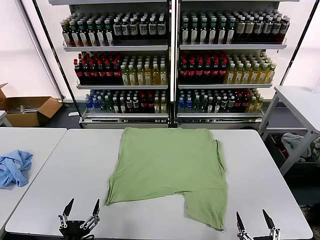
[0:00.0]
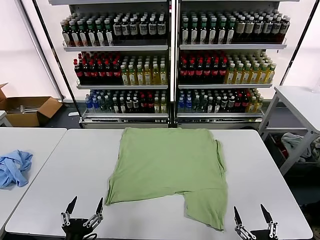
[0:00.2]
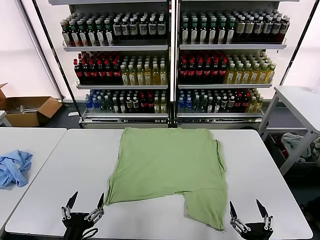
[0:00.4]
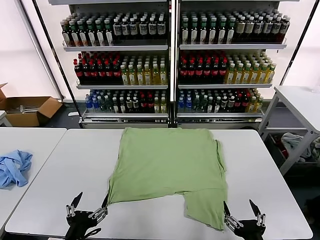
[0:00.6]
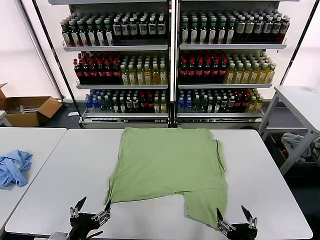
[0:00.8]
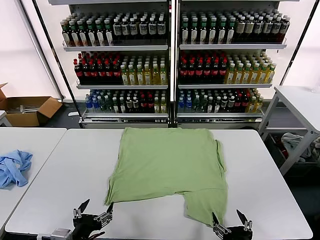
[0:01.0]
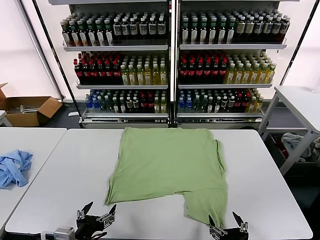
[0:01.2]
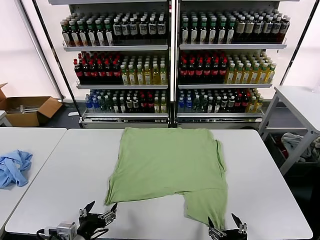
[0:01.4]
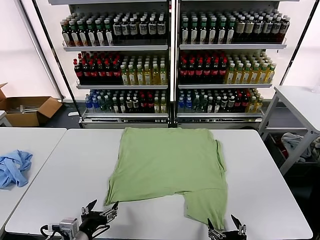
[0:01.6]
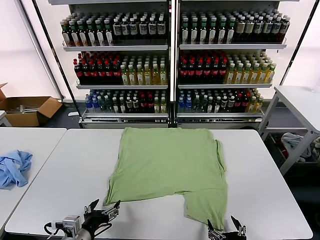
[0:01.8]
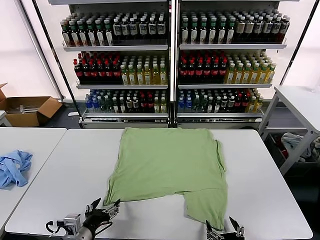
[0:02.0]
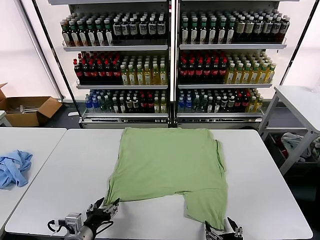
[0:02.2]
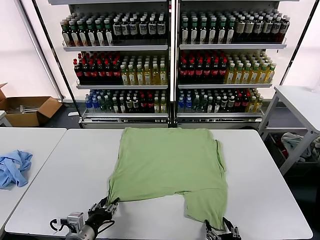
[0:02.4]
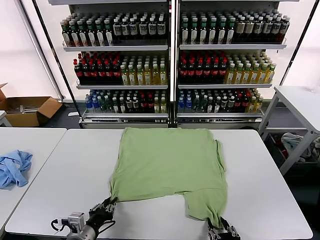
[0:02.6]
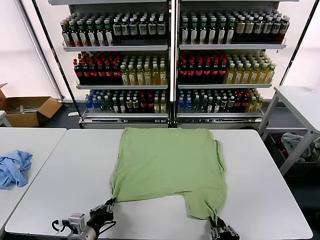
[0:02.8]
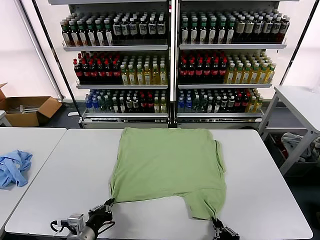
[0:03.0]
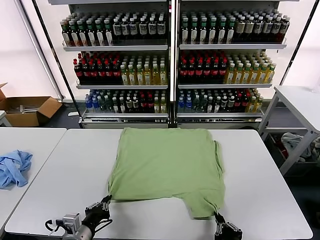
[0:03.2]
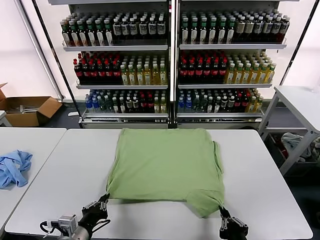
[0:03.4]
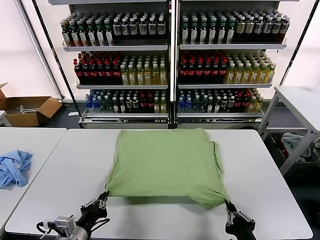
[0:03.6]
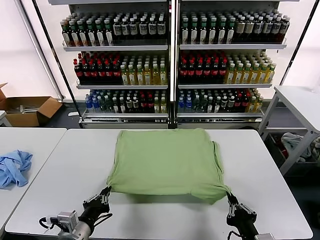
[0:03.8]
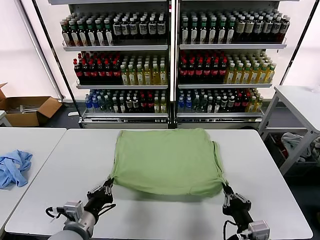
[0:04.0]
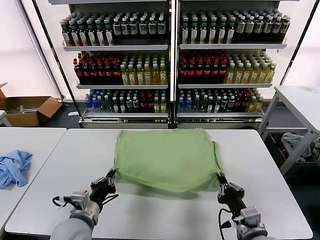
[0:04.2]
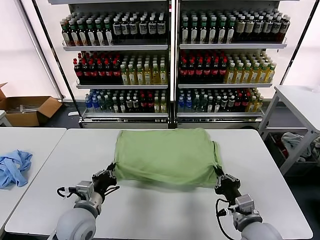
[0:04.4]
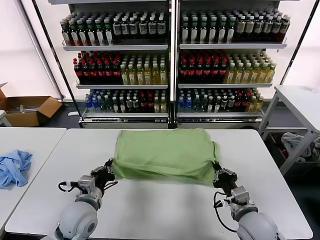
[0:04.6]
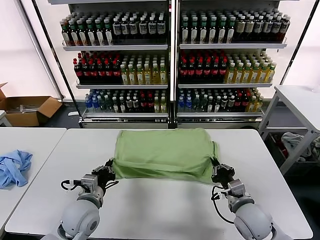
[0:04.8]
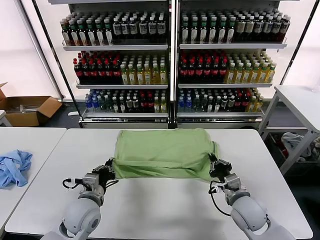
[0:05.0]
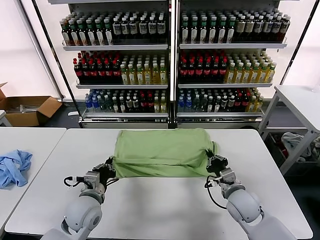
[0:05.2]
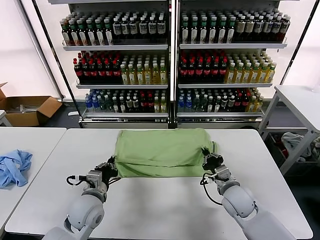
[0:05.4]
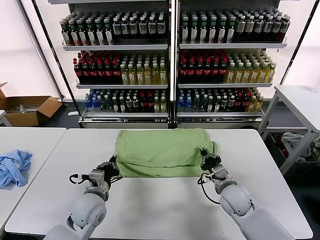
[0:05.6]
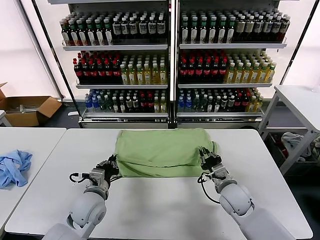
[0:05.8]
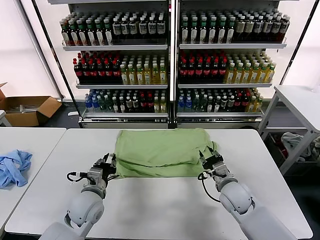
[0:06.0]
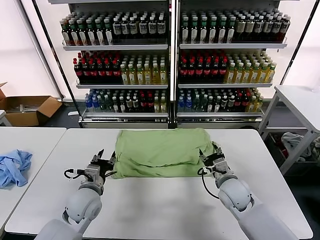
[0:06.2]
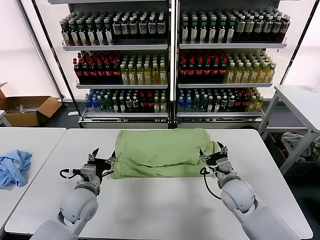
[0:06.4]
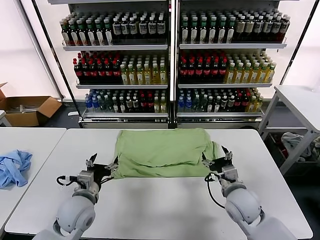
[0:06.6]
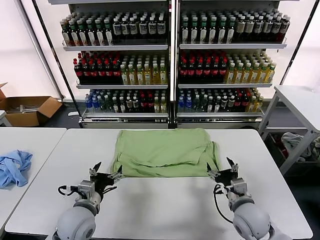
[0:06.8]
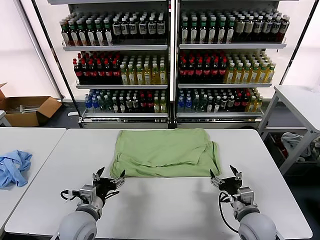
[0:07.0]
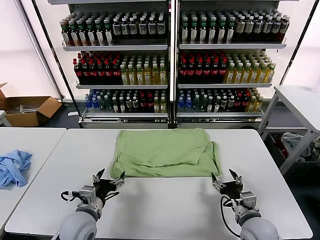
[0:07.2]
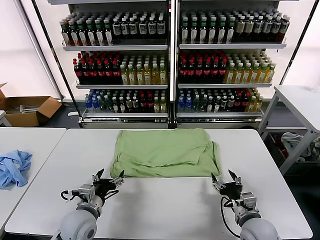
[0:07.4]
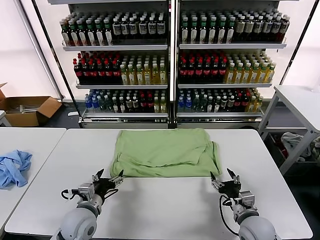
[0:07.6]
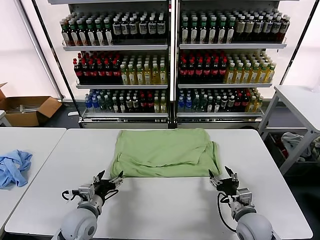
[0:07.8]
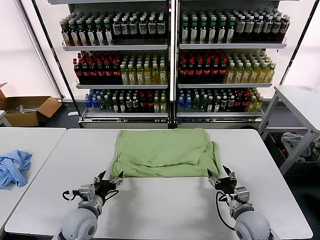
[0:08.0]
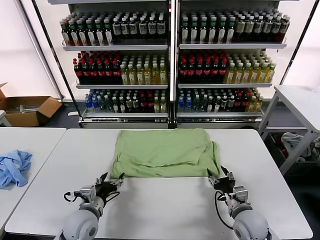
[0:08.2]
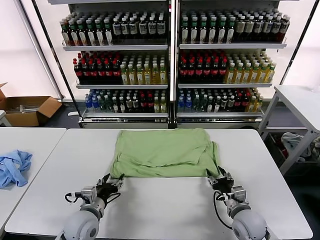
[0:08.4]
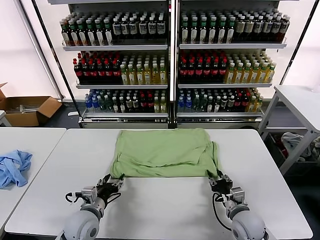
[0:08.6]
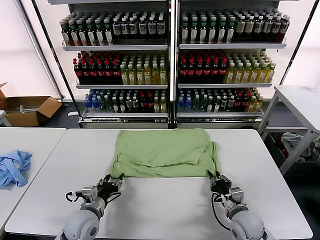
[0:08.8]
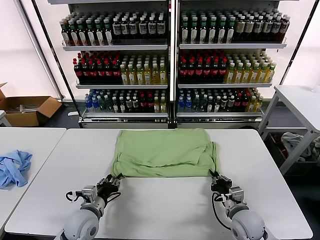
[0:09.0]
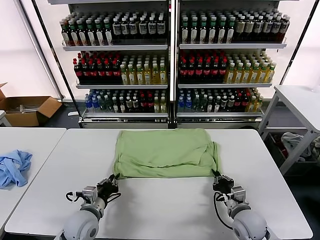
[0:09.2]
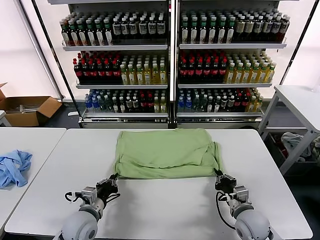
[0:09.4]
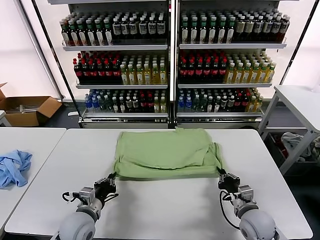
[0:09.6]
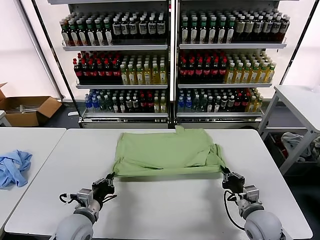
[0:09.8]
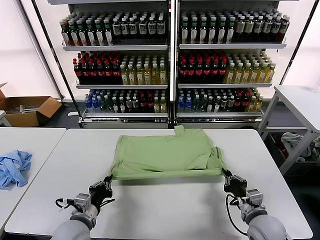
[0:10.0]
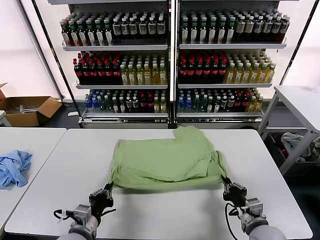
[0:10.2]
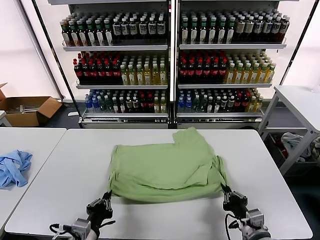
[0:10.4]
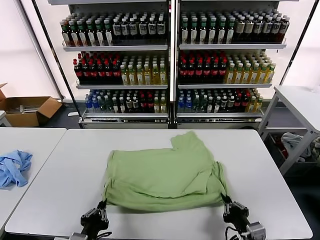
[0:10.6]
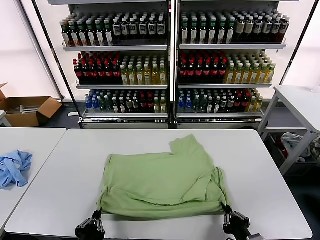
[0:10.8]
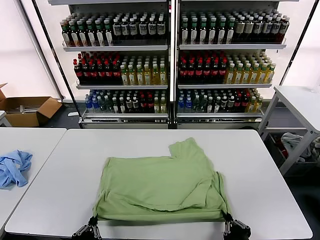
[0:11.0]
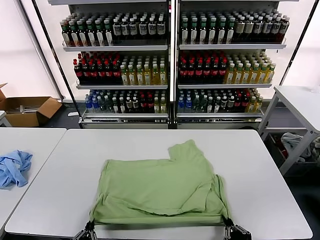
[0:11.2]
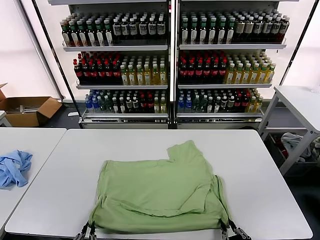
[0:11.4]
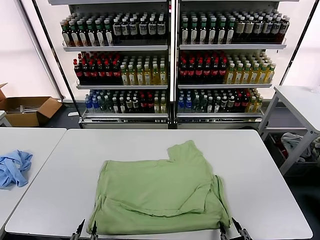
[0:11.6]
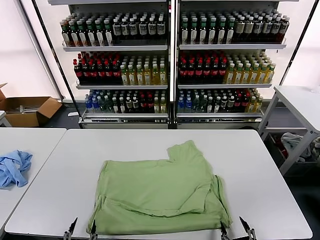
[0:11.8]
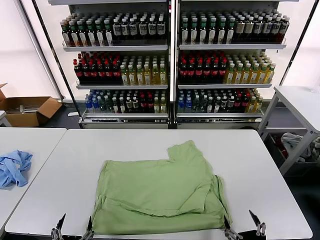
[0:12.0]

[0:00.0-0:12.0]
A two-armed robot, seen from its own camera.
Task of the whole recording: fold and organize the clothes.
Step, 0.0 to 3.0 s: use both grippers simultaneously to clamp the lower edge of the clothing fabric.
Step, 3.2 to 6.0 s: use both grippers to drag the lower edge of the fabric forward and fold it over the upper edge.
Step, 6.2 to 11.6 s: Drag the clothes downward with both gripper.
1.6 to 3.0 s: The right gripper closes up. Meanwhile the left gripper closes up.
3.0 to 4.4 s: The left gripper travels forward by roughly 5 cm; the right gripper goes roughly 15 cm forward.
4.4 to 6.0 s: The left gripper goes approximately 5 cm forward. The right gripper heads forward, covering approximately 10 cm, and opens.
6.0 to 7.6 s: The right gripper goes approximately 10 cm backward, while the left gripper moves approximately 5 cm, and opens up.
7.6 to 9.0 s: The left gripper closes; the right gripper closes.
9.0 to 10.4 s: The left gripper heads backward, covering approximately 10 cm, and closes up. The right gripper is displaced backward and upward by roughly 10 cm.
10.4 to 12.0 s: Both grippers travel together backward, approximately 10 cm. The left gripper opens; the right gripper opens its fingers.

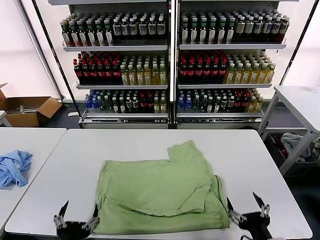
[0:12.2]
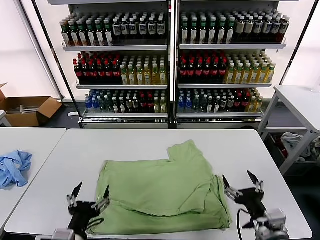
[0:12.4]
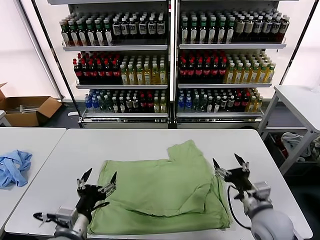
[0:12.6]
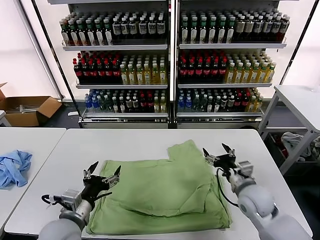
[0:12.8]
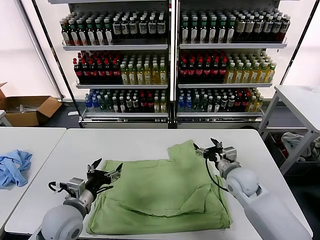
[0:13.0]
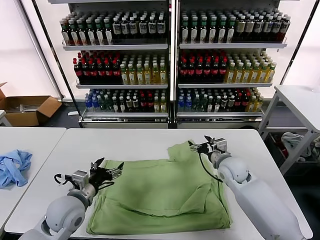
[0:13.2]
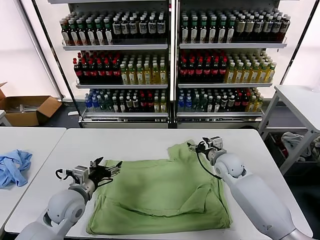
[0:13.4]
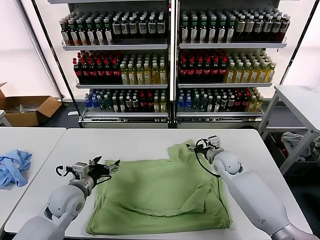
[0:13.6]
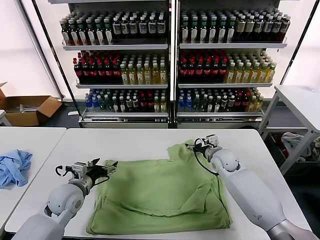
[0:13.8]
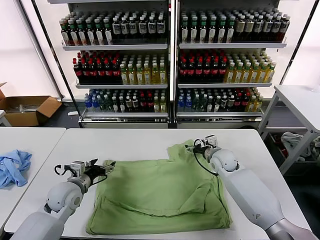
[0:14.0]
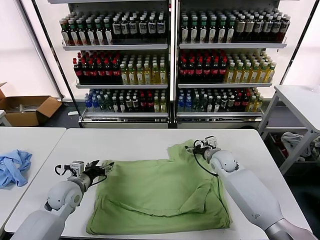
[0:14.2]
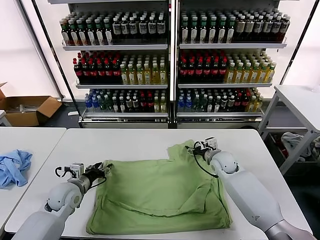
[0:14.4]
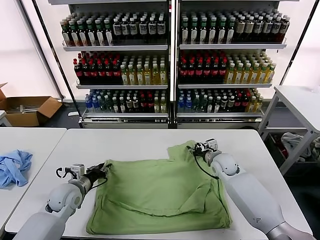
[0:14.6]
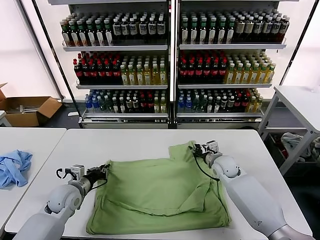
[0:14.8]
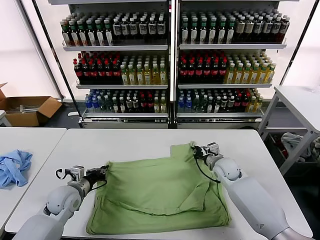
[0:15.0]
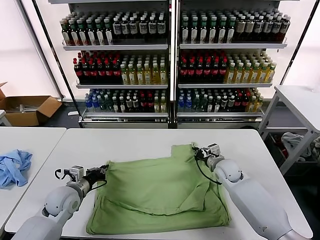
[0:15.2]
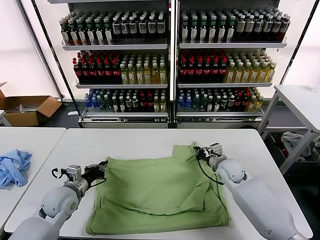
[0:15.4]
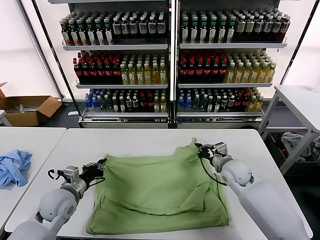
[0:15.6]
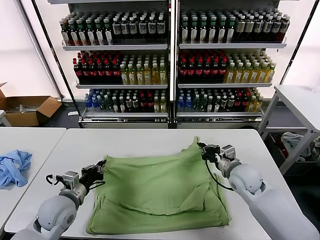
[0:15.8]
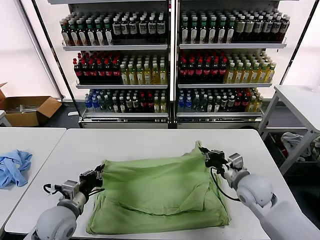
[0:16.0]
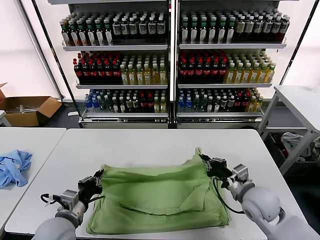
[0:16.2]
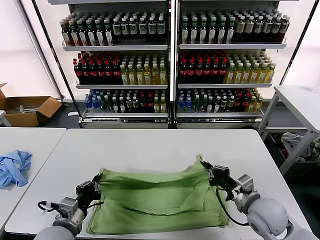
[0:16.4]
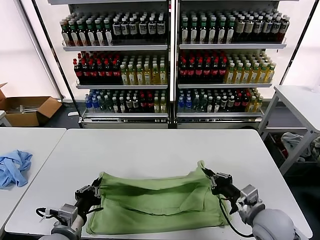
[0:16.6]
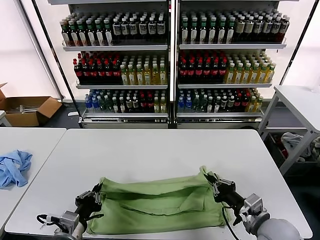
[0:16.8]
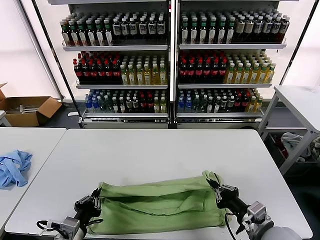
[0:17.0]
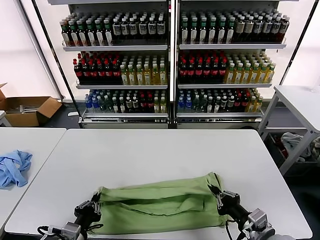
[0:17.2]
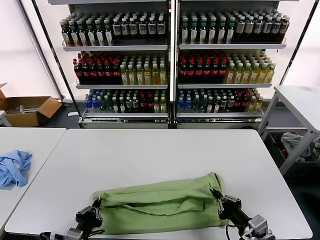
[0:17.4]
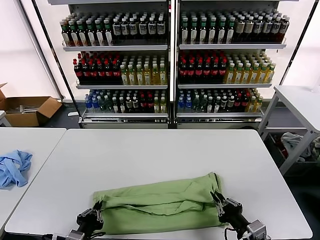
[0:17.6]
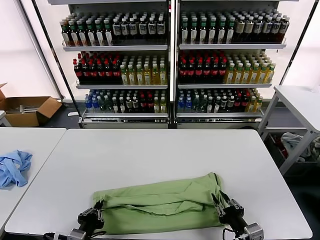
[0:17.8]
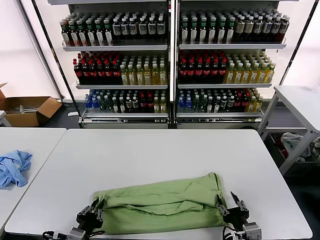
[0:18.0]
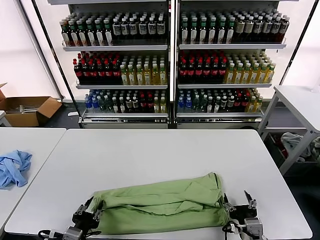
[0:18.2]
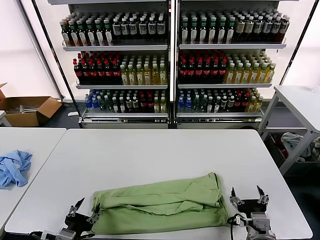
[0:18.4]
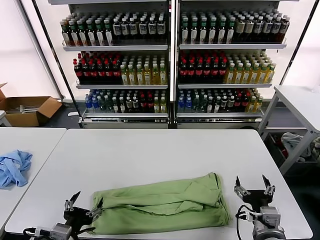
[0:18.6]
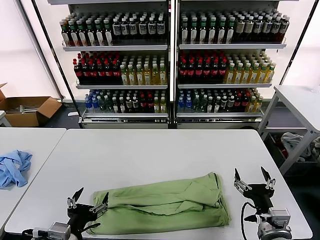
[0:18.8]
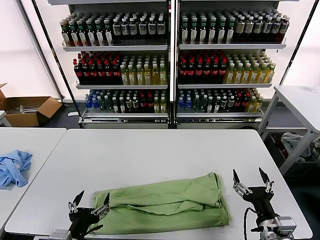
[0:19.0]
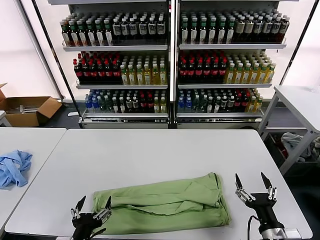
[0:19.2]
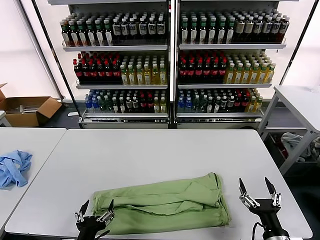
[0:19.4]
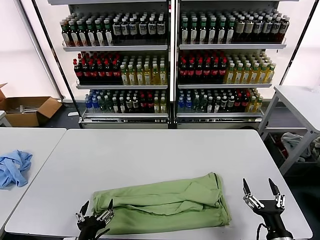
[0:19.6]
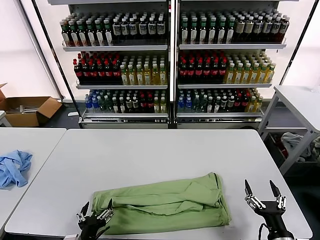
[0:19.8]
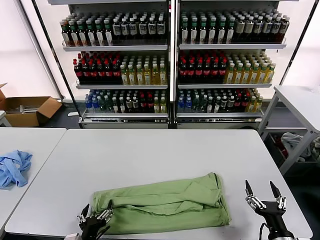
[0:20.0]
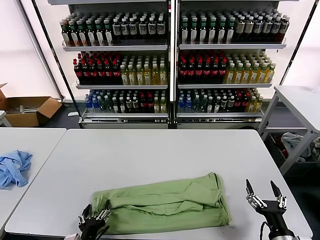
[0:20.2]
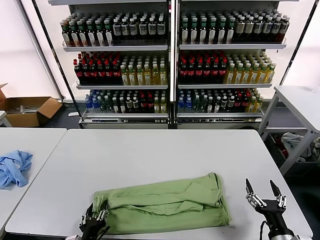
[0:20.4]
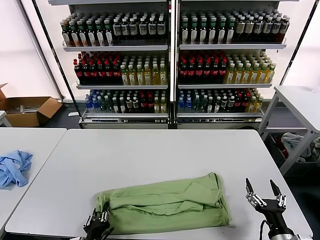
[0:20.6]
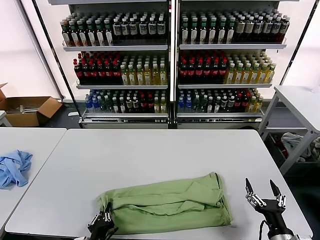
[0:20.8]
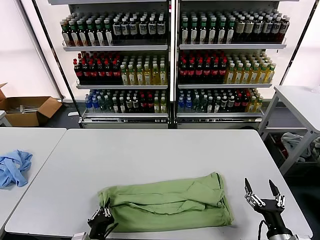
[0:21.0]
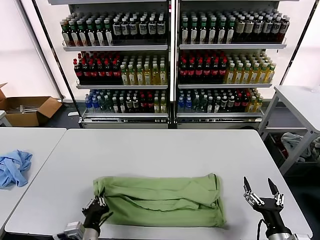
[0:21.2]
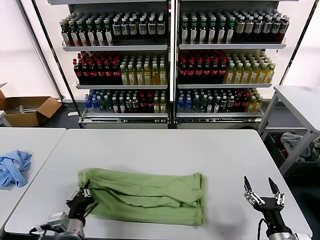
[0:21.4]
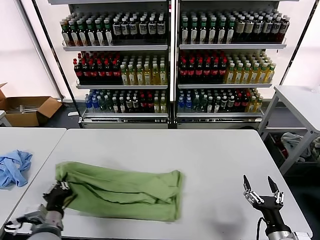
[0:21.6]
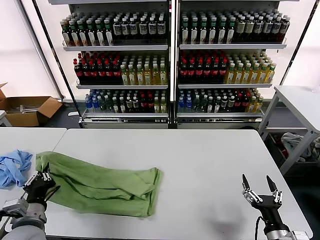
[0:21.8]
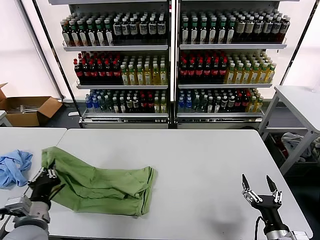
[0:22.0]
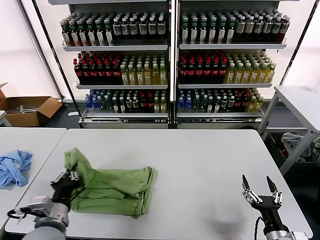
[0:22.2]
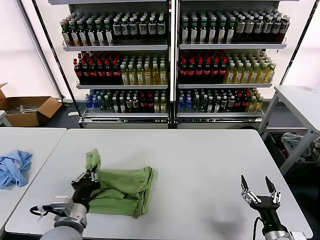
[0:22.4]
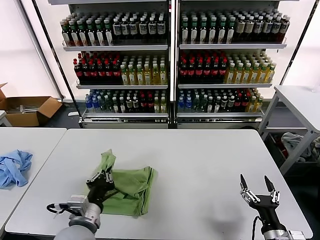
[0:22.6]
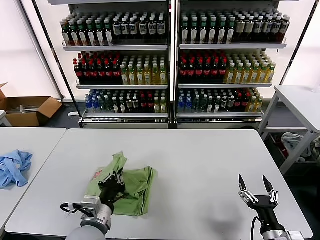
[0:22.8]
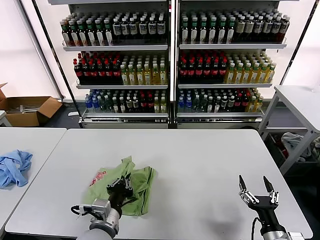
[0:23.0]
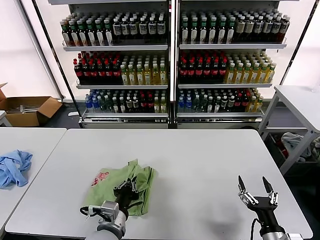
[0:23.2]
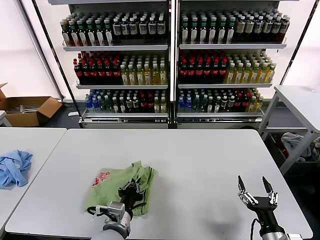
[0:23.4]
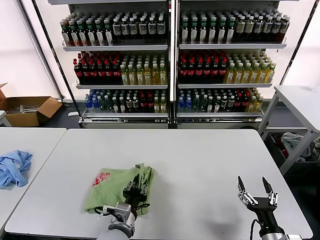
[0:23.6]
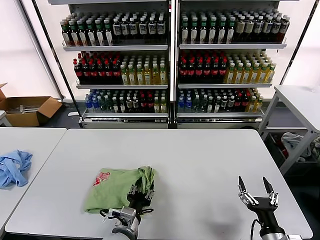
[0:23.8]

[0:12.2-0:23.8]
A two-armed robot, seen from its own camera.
Task of the whole recording: fold and organize the clothes.
Step, 12.2 to 15.0 s: use both grippers simultaneously to clamp the upper edge of the clothing fabric.
Step, 15.2 to 18.2 s: use both grippers to drag the upper edge of the fabric backward and fold it over the lower edge.
Step, 18.4 to 20.8 s: use the left gripper to clamp the left edge of the fabric.
12.2 to 13.6 s: The grippers both shift forward by about 30 cm.
13.6 to 15.0 s: The left gripper moves approximately 5 cm, and closes up. The right gripper closes.
15.0 to 16.6 s: Both grippers travel together backward, approximately 20 cm.
16.6 to 18.0 s: The right gripper heads backward and downward, covering some 10 cm, and opens. Meanwhile the left gripper shifts roughly 5 cm backward.
18.0 to 19.4 s: The left gripper travels upward and back again, roughly 10 cm each way, and opens its fingers. The right gripper heads to the right, covering roughly 5 cm.
19.4 to 21.0 s: The left gripper is displaced downward by about 5 cm, and closes its fingers.
21.0 to 22.4 s: The left gripper travels upward and forward by approximately 15 cm.
22.4 to 23.8 s: The left gripper travels to the right and downward by some 15 cm, and opens up.
